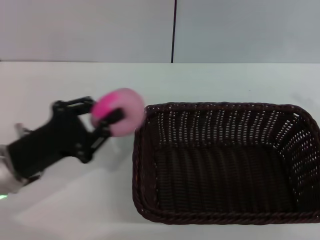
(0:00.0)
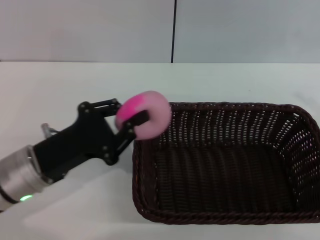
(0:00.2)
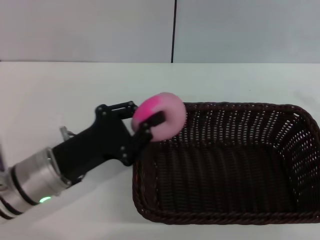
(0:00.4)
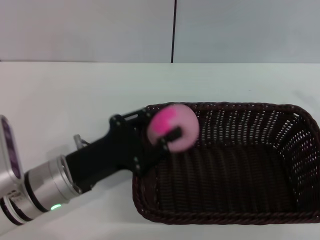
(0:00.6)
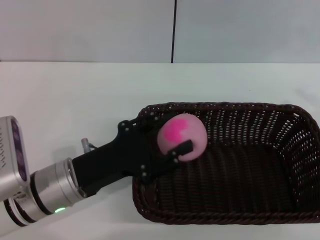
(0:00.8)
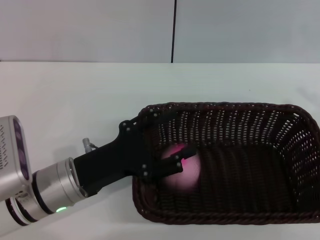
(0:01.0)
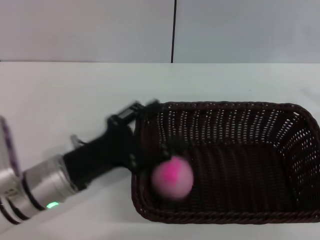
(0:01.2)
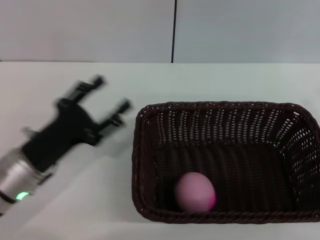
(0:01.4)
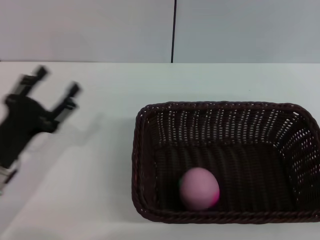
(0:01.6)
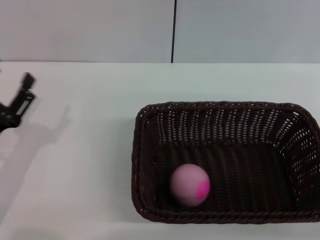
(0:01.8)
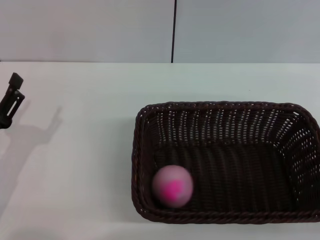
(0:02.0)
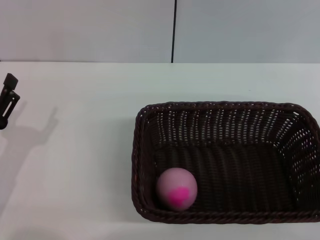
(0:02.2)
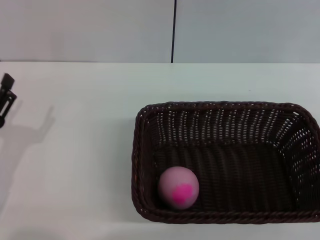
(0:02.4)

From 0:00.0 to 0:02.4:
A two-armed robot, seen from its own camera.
Step, from 0:00.0 to 0:01.2: Place the peach into the basket with the left gripper.
From 0:00.0 to 0:01.2: The left gripper heads to the right, covering roughly 5 cm, and opens its fingers.
From 0:01.2 to 0:02.4: The left gripper is displaced to the left by roughly 10 cm.

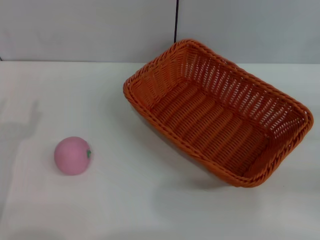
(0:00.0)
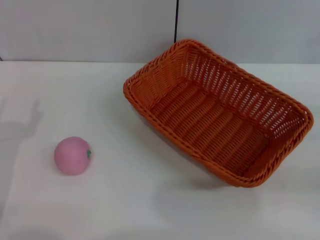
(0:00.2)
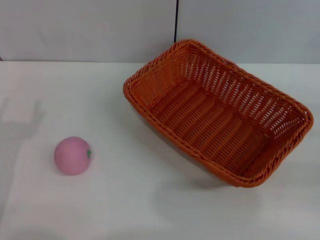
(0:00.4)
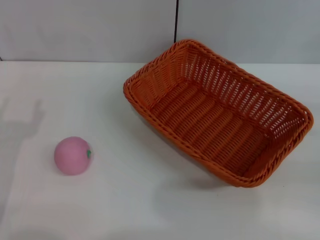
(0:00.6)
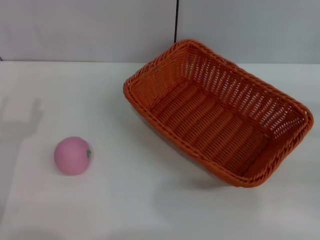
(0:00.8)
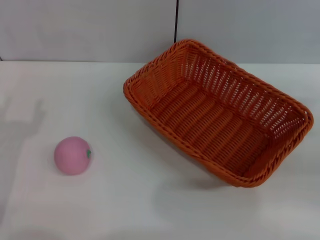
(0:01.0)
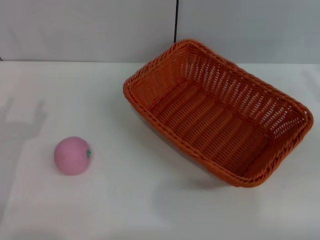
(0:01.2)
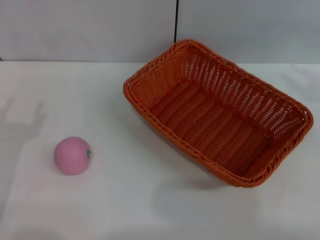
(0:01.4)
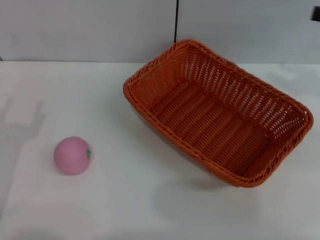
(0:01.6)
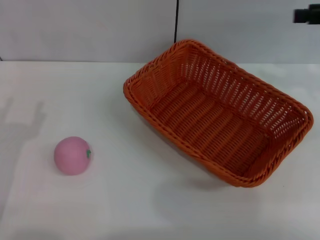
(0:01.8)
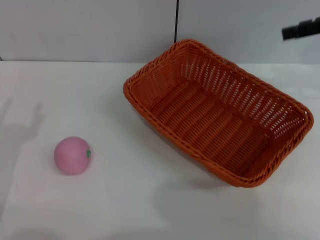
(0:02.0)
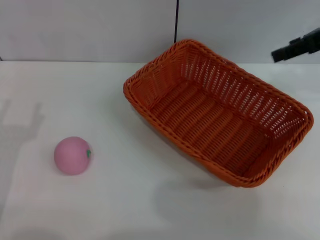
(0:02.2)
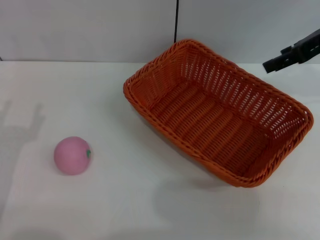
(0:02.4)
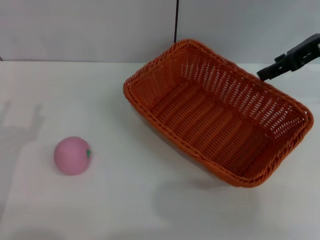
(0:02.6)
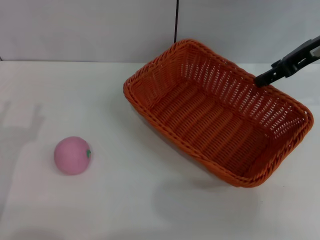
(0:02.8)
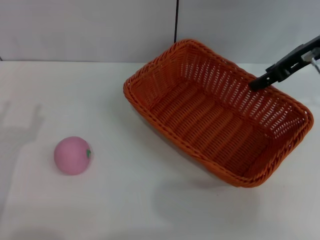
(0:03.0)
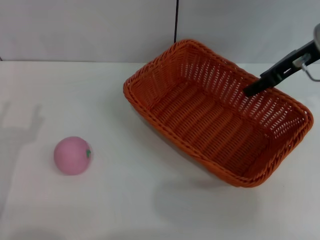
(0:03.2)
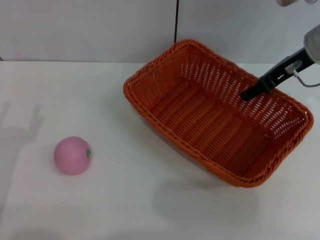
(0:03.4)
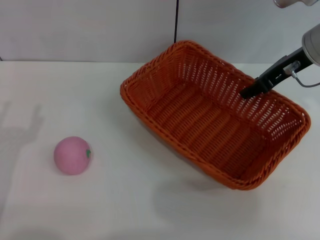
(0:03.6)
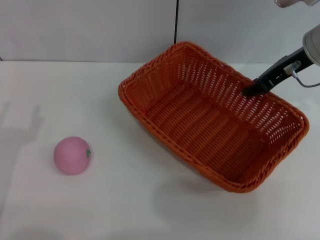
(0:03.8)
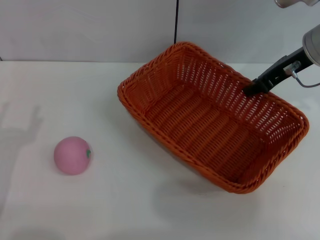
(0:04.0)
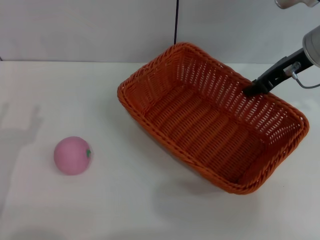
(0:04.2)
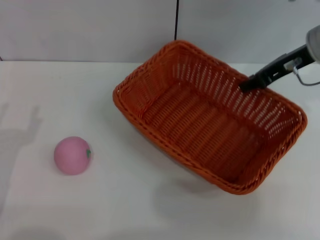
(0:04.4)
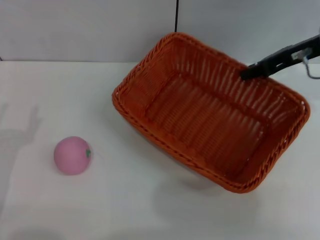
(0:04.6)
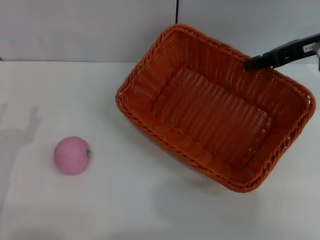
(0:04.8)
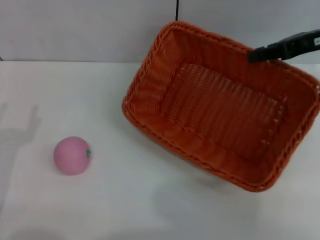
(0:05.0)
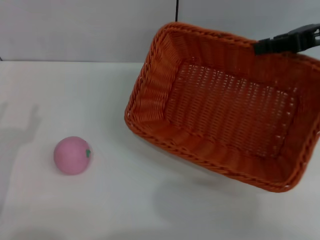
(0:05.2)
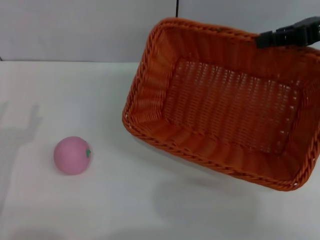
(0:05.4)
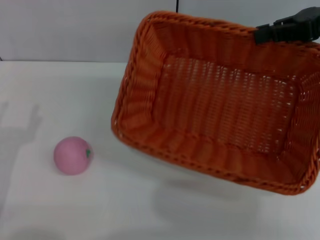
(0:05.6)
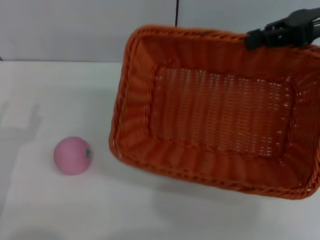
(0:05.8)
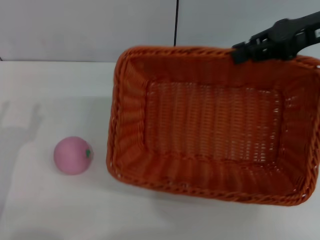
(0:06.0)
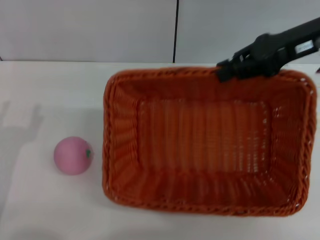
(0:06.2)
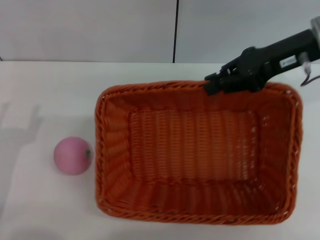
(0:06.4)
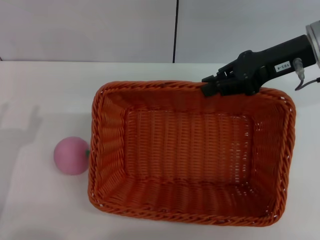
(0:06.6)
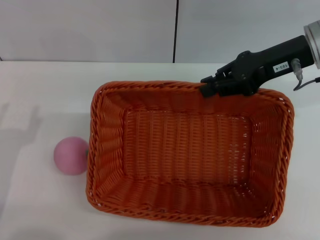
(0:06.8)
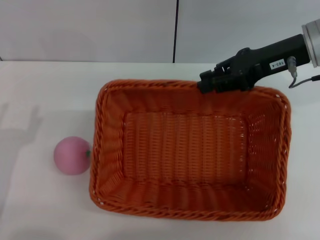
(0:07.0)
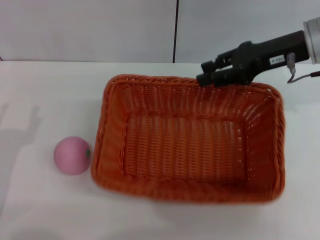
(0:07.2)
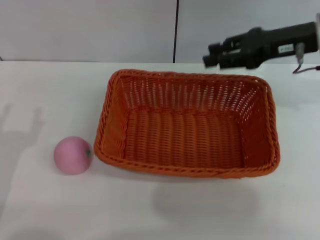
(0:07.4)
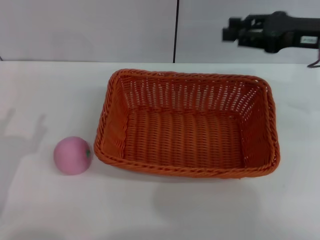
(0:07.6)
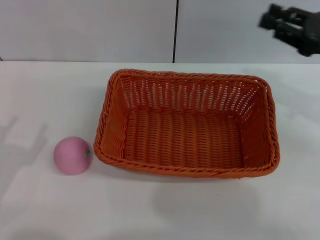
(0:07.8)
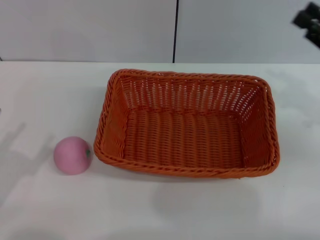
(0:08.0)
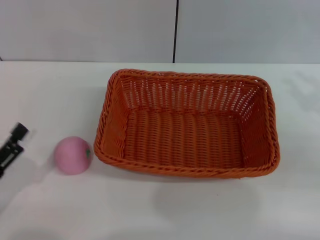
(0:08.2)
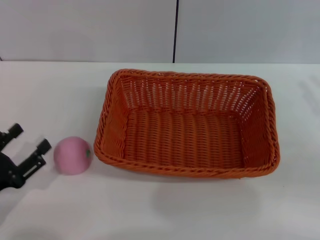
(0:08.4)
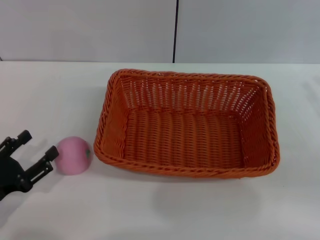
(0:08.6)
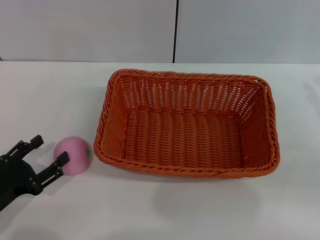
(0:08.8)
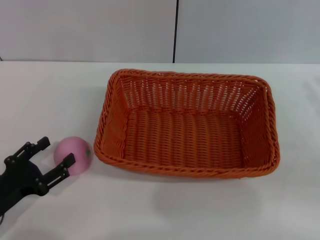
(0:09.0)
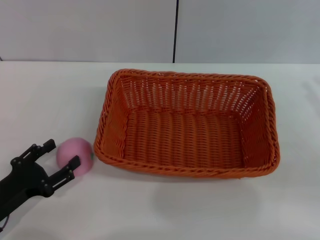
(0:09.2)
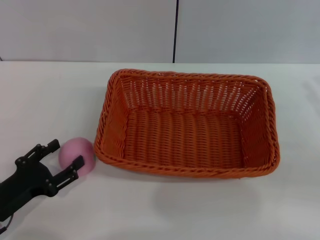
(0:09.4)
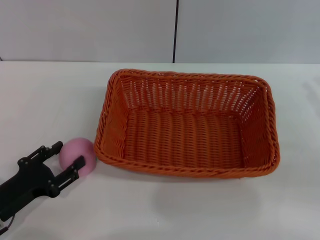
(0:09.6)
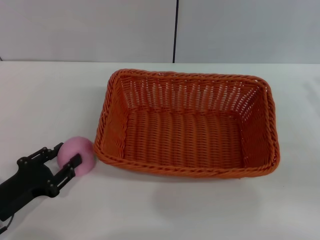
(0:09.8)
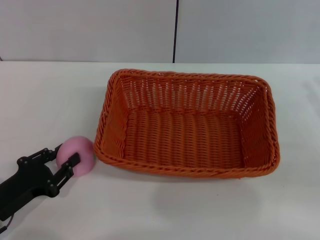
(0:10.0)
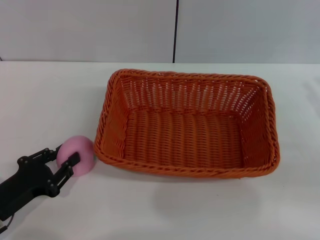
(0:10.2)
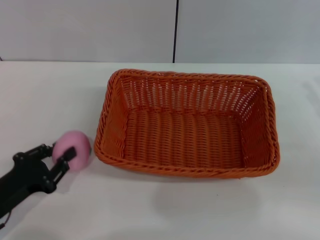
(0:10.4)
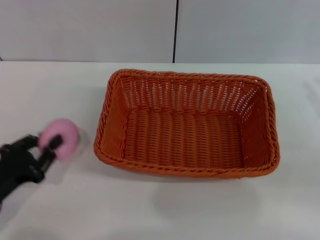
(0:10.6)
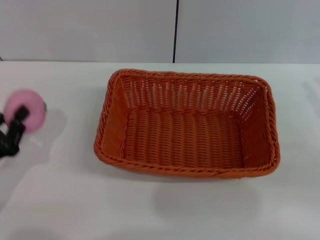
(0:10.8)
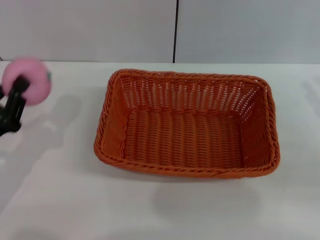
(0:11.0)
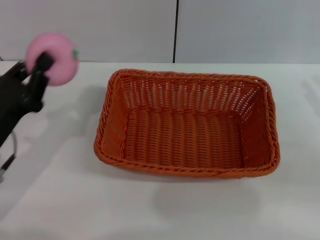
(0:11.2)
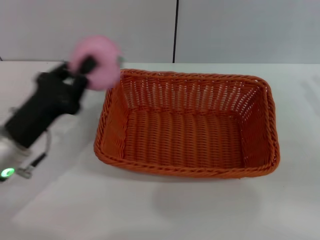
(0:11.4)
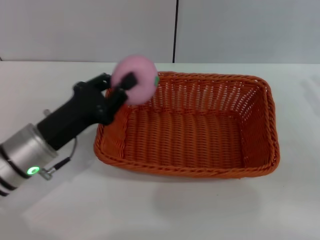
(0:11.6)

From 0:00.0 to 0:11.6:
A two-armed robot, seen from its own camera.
Step, from 0:00.0 to 0:04.6: Pick up the light basket with the right gripper.
Step, from 0:04.8 to 0:07.6: Place the light basket in the center of view with the right gripper.
Step, from 0:07.8 to 0:10.8: Pick up the peach with the left gripper.
From 0:01.4 to 0:02.8: The right gripper heads to the left and forward, covering about 15 cm.
From 0:02.8 to 0:04.4: The right gripper closes its fingers.
From 0:04.4 to 0:05.8: The right gripper moves upward, some 5 cm.
From 0:05.8 to 0:07.2: The right gripper heads downward and to the left, covering roughly 10 cm.
From 0:07.2 to 0:08.8: The right gripper travels backward, to the right and downward by about 20 cm, while the left gripper travels downward by about 5 cm.
From 0:08.8 to 0:10.2: The left gripper closes.
From 0:10.2 to 0:11.6: The left gripper heads to the right, forward and upward, covering approximately 15 cm, and closes up.

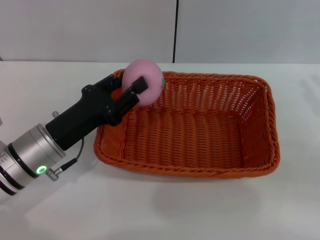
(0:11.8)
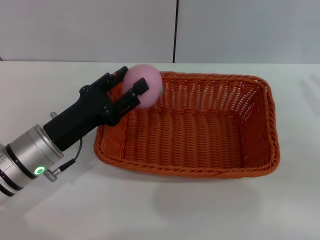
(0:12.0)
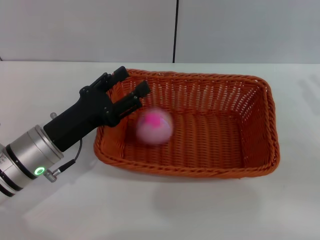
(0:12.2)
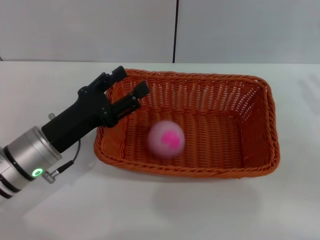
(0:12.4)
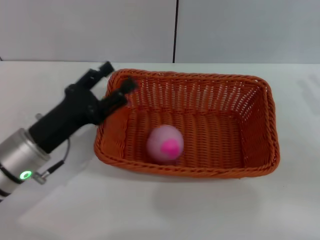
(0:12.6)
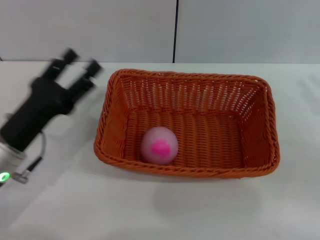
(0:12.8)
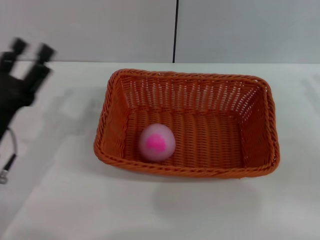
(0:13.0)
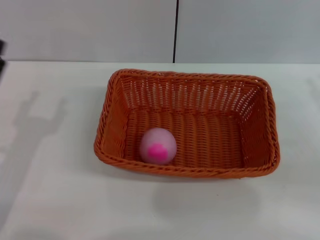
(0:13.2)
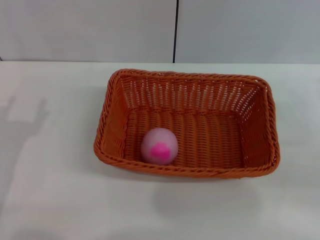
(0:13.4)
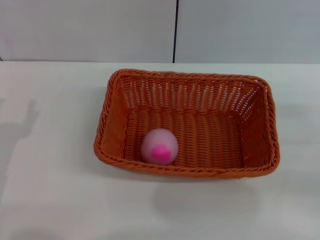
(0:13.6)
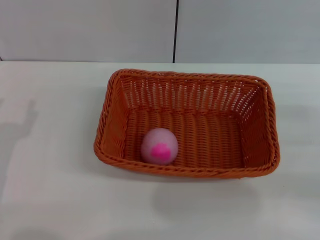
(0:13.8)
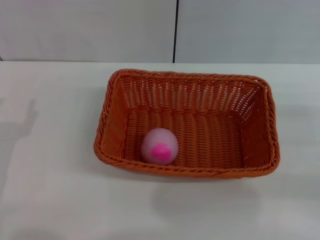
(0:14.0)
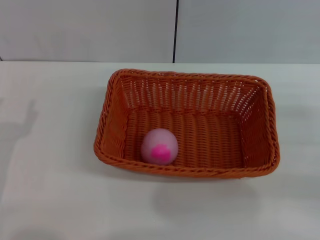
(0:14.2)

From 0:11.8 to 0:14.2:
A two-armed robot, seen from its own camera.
From 0:11.8 to 0:13.0: The left gripper heads to the left, covering approximately 5 cm, and opens its fingers.

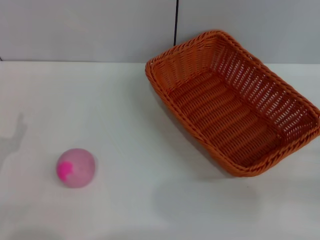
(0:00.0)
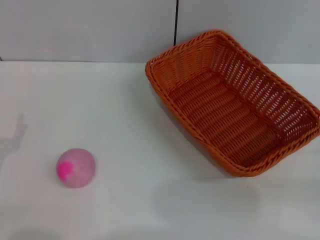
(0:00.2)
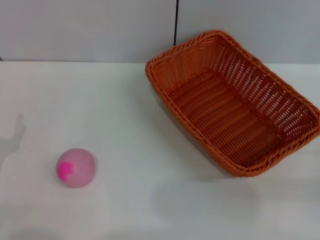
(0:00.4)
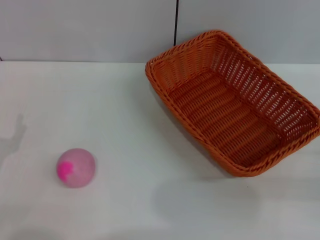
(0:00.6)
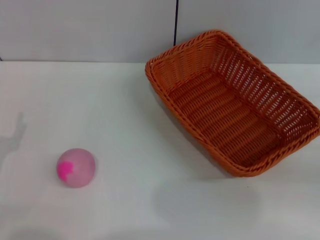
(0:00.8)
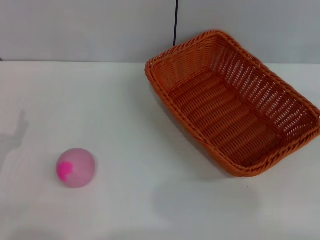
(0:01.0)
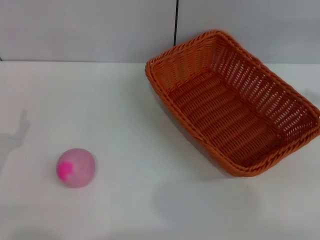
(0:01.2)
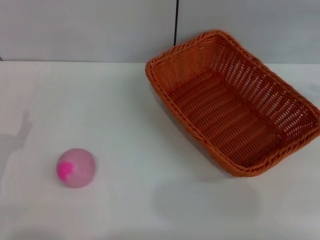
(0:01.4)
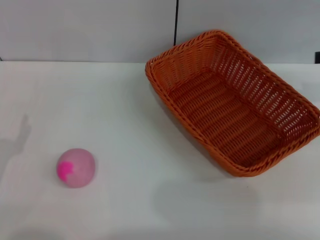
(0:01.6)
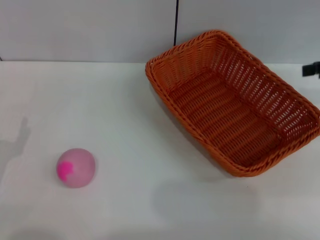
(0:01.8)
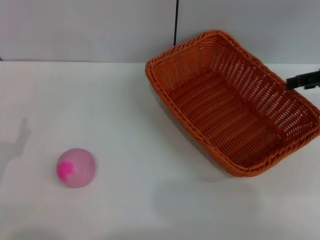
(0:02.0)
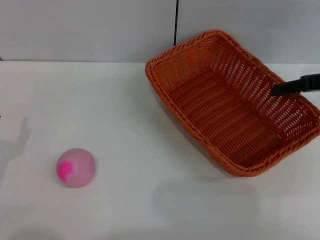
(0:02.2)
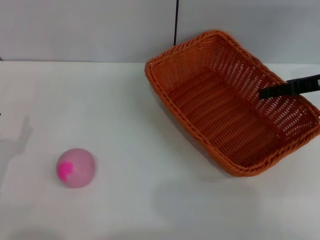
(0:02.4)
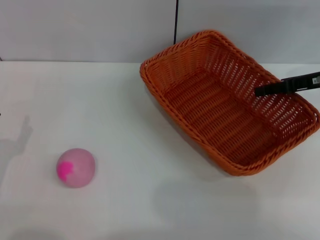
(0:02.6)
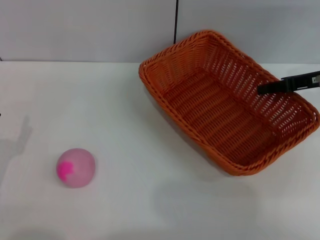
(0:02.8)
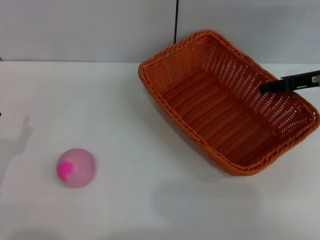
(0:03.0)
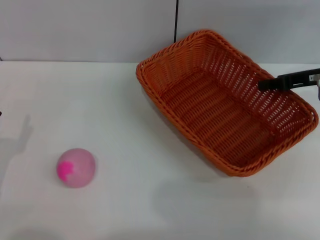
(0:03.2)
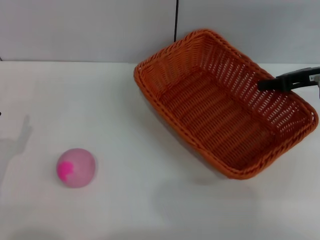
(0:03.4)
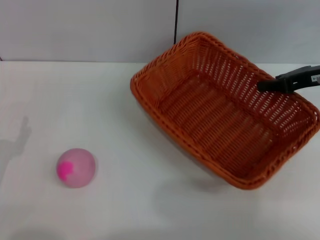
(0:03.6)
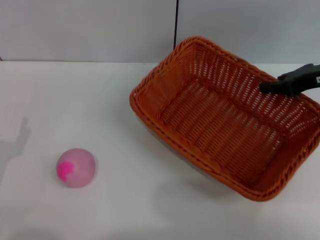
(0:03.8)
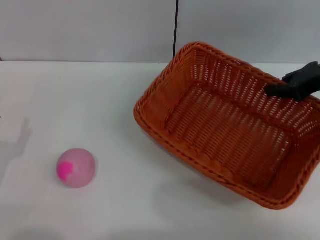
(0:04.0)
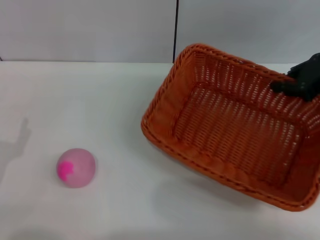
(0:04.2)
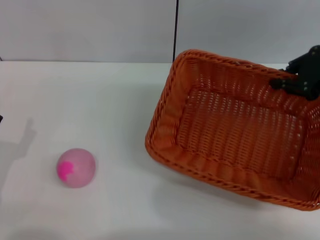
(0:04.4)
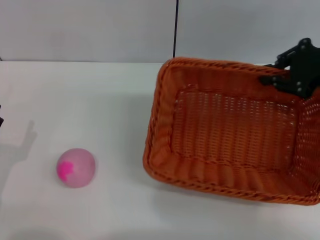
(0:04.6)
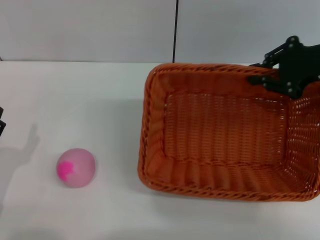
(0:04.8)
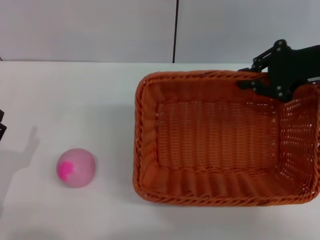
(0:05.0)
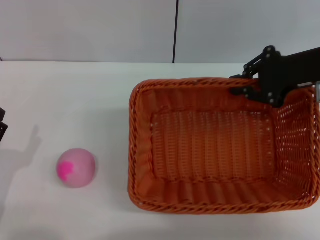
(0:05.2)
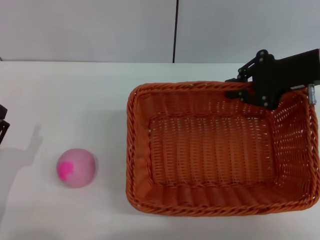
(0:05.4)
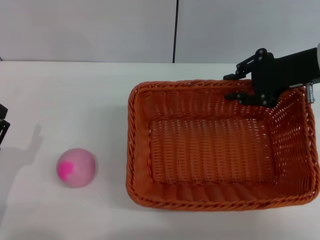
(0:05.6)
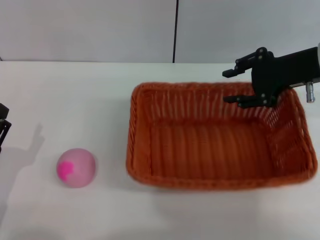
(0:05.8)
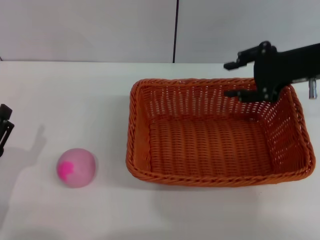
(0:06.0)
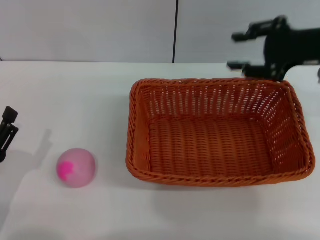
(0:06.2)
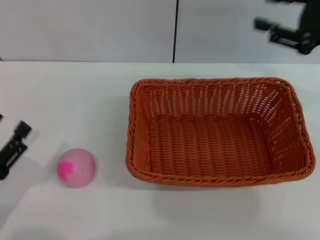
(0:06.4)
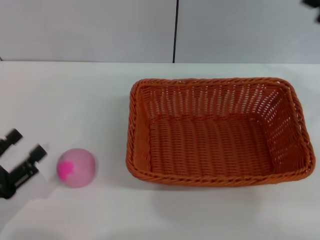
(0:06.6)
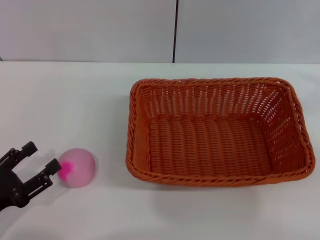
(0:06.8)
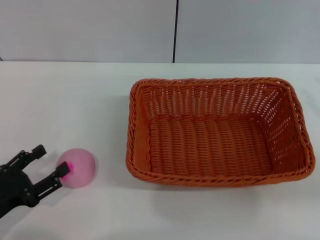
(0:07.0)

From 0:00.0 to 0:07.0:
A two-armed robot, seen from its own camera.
Step, from 0:00.0 to 0:03.6: Pick up the light basket with the right gripper.
Step, from 0:03.8 to 0:05.8: Place the light basket in the center of view with the right gripper.
From 0:01.4 to 0:02.8: The right gripper moves to the left, downward and forward, about 15 cm.
From 0:02.8 to 0:04.2: The right gripper changes place by some 5 cm, and closes its fingers.
From 0:04.2 to 0:05.6: The right gripper is displaced to the left by roughly 5 cm.
From 0:05.6 to 0:07.0: The right gripper goes roughly 20 cm backward and to the right, and opens.
